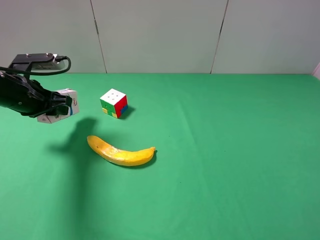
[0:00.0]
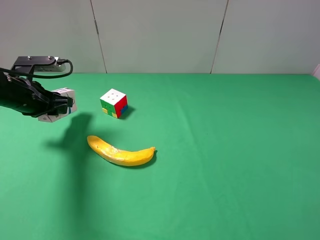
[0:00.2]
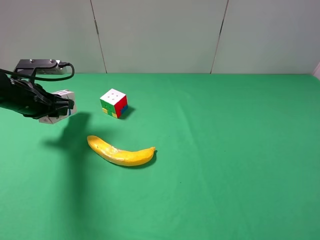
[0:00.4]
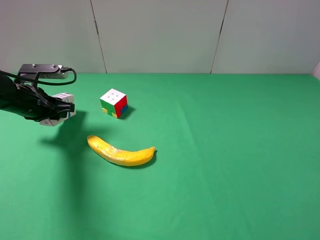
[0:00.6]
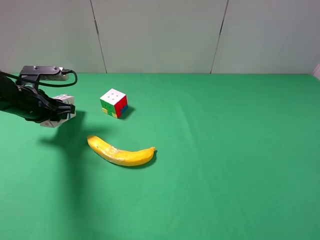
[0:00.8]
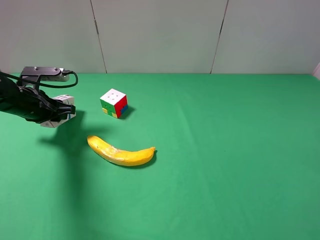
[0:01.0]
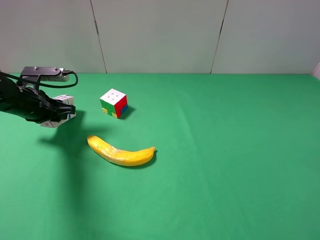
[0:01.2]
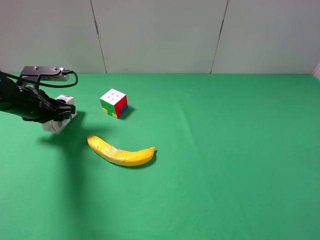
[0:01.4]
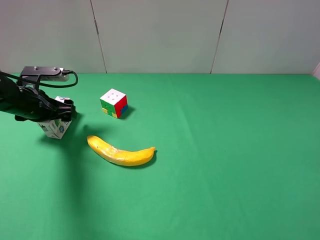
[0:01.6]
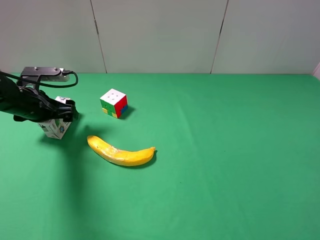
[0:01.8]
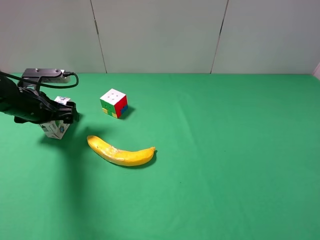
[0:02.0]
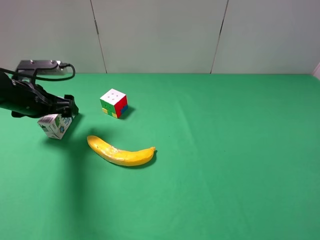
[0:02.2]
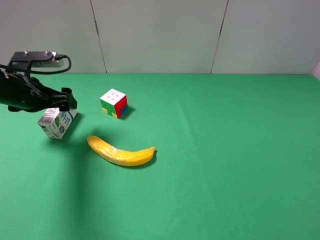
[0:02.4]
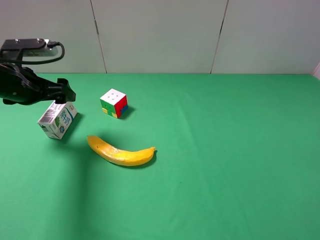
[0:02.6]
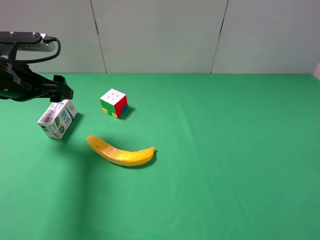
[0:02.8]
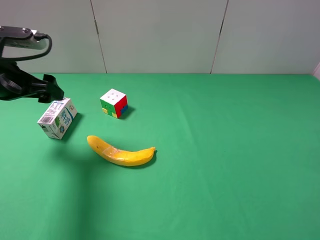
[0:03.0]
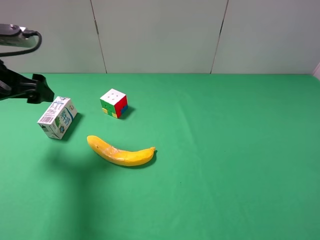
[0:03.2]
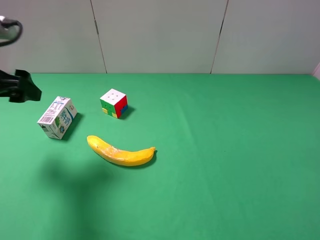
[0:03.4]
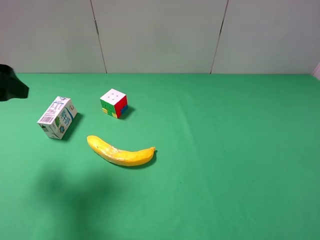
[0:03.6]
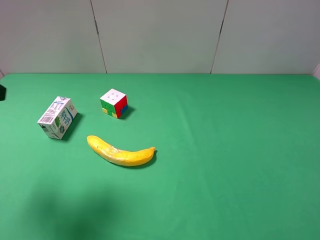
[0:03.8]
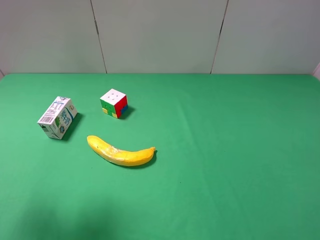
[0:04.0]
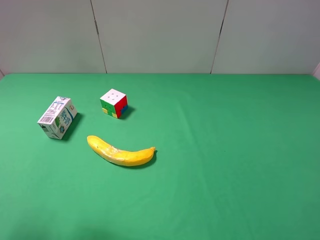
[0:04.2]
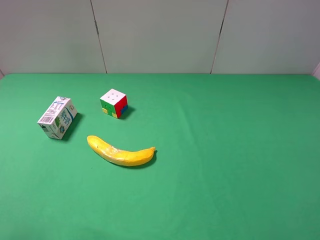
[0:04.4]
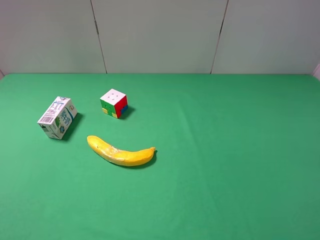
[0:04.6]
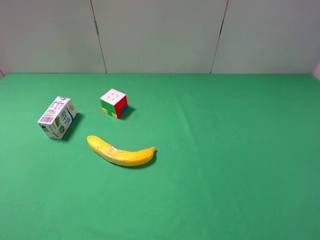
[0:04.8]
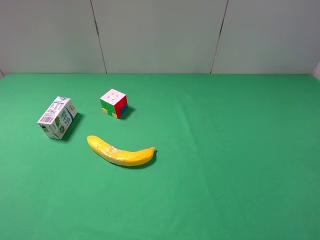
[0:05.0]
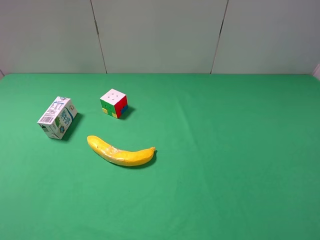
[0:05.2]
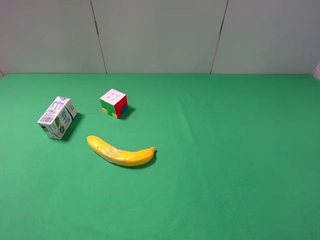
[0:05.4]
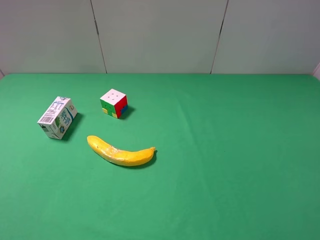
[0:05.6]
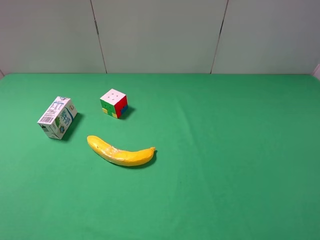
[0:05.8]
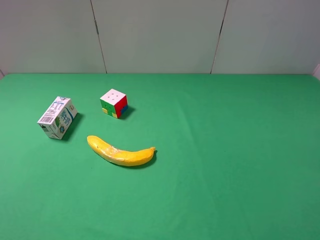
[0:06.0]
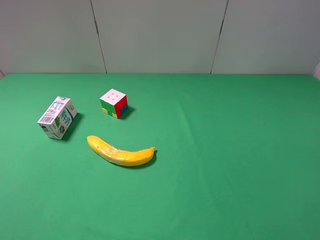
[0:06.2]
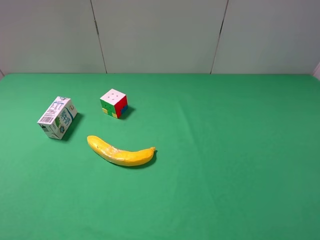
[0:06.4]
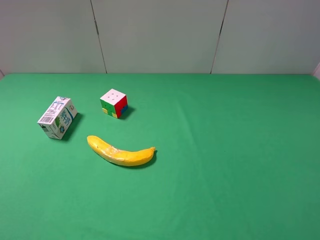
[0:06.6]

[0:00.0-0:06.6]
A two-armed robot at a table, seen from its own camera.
Task of the whole recording: use the right gripper to pick up the item and transfer it from the right gripper to the left gripper.
0:00.0 to 0:01.6: The left gripper opens.
0:01.6 to 0:03.2: The left gripper shifts some 15 cm upward and backward.
0:03.2 to 0:05.0: The left gripper travels backward by approximately 25 cm.
